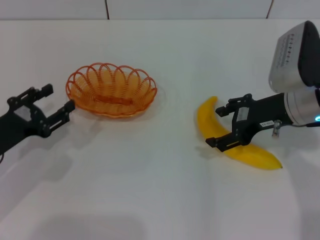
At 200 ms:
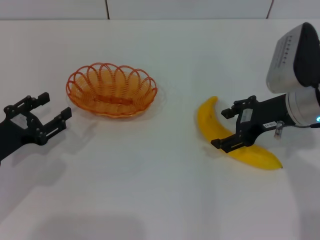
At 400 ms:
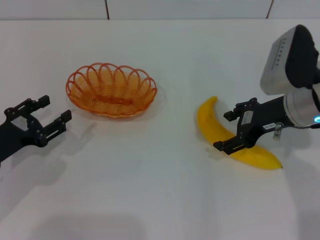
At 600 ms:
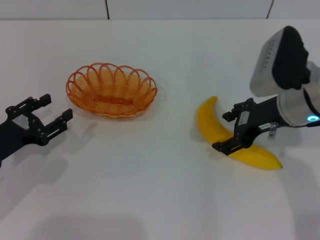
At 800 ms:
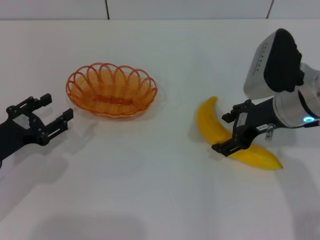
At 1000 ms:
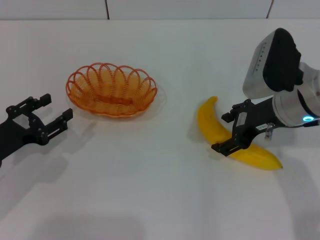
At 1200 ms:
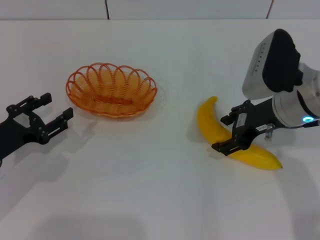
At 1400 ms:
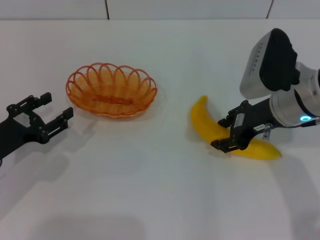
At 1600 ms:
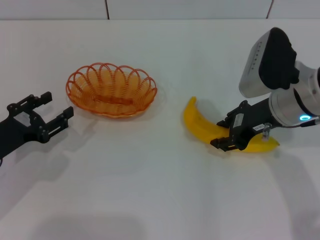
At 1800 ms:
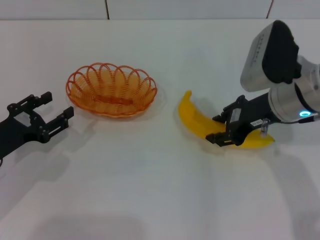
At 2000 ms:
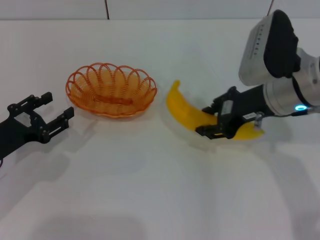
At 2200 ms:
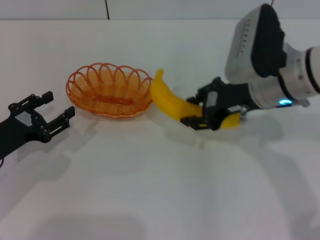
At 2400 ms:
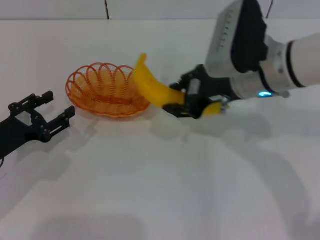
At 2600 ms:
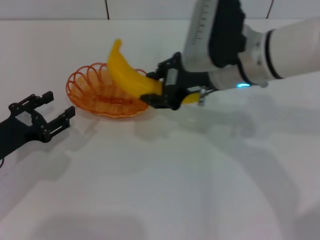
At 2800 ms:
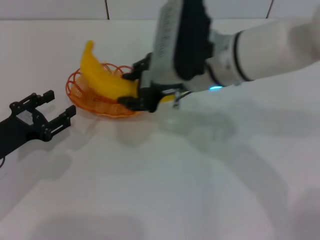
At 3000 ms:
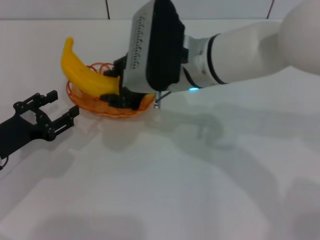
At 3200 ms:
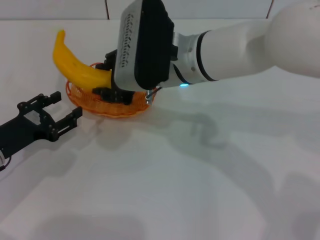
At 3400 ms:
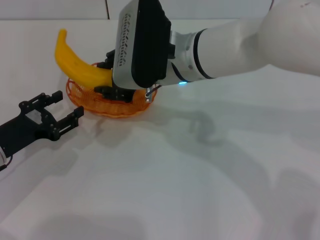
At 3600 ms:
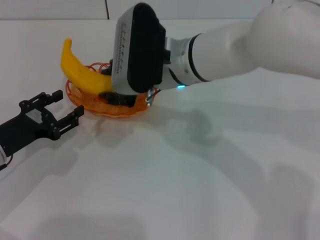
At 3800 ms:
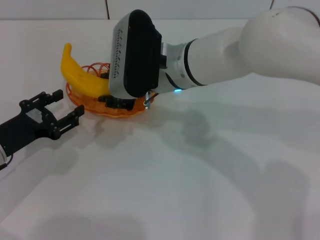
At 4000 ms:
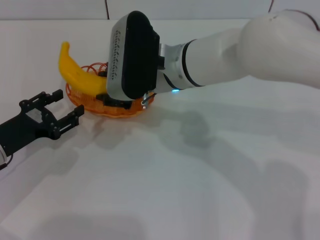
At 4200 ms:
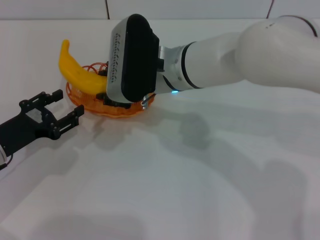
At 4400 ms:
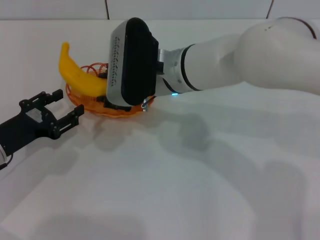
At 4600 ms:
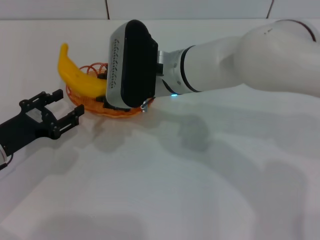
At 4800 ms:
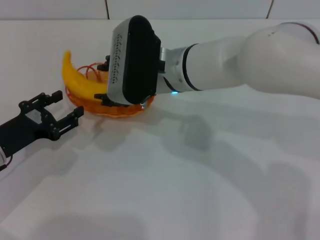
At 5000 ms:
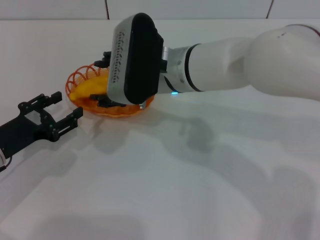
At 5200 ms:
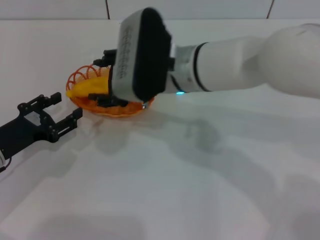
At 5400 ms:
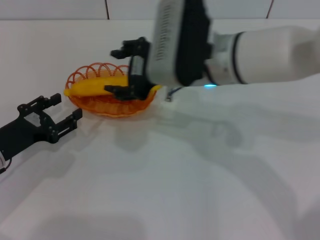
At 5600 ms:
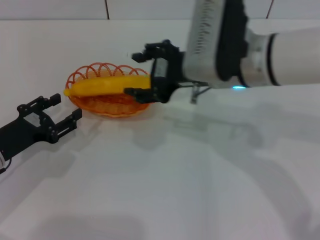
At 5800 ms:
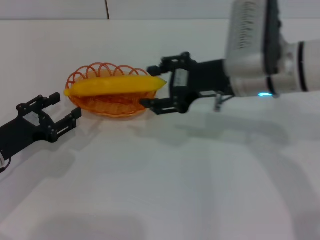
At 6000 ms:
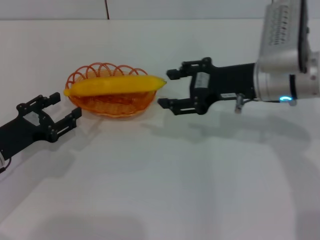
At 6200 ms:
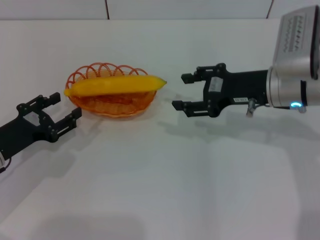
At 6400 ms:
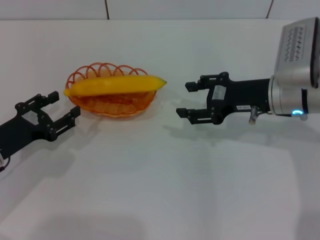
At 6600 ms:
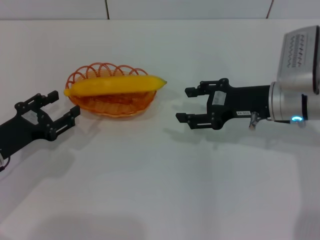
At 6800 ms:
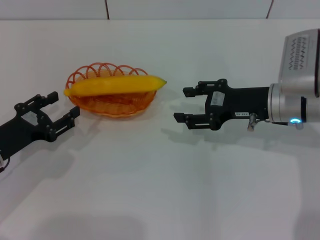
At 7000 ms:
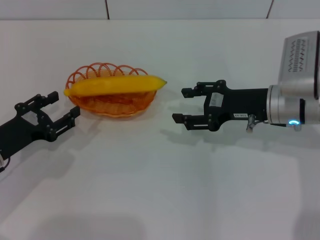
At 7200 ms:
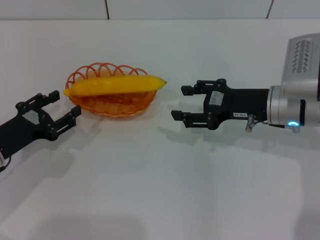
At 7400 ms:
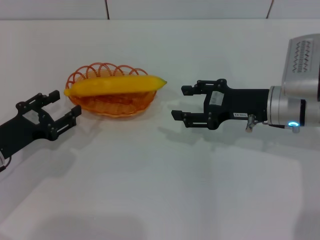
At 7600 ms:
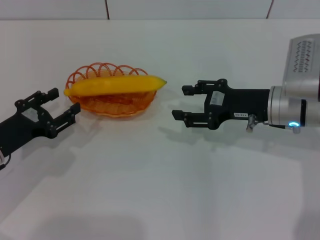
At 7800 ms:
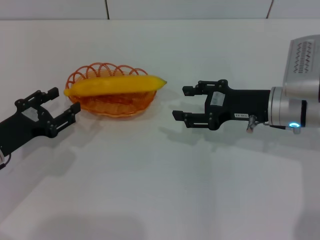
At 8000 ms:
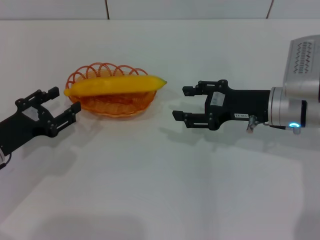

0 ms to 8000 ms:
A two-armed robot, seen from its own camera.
Step, 0 ms to 2200 ms: Pick up the banana with the right gripper.
Step, 2400 ms to 5000 ms: Place the banana into the basket with the right gripper.
0 ms to 1600 ms: The right gripper closes its fingers.
1600 ms to 3200 ms: The right gripper travels to the left by about 15 cm.
3200 ms to 4800 ms: The grippers make only small movements.
4800 ms to 6400 ms: The right gripper travels to the right by approximately 20 cm.
6400 ms to 8000 ms: There are only small adjustments of the grippers.
